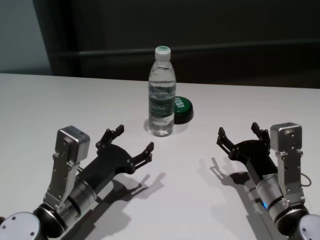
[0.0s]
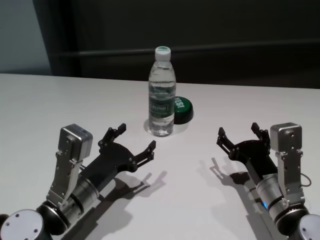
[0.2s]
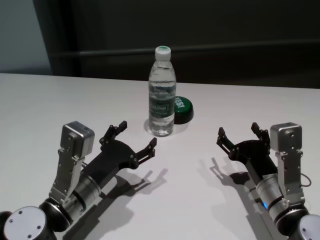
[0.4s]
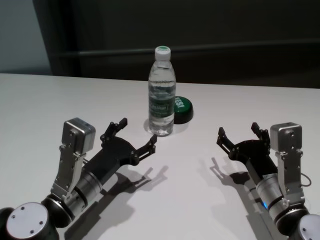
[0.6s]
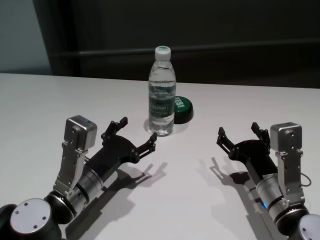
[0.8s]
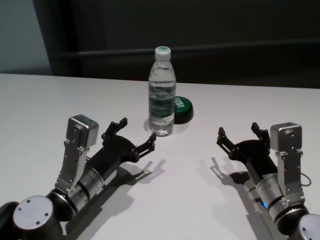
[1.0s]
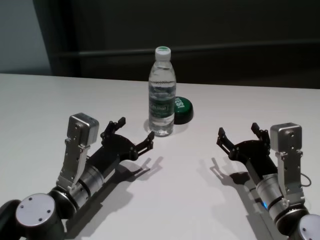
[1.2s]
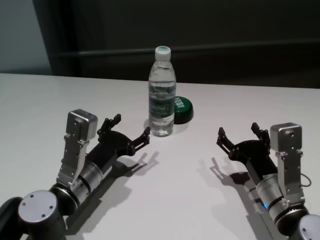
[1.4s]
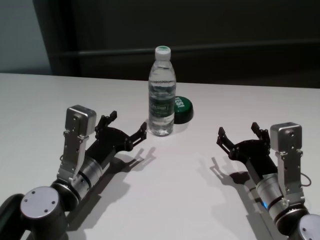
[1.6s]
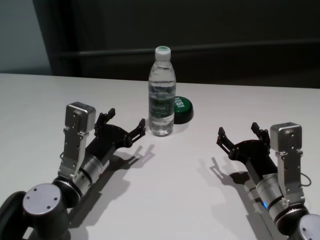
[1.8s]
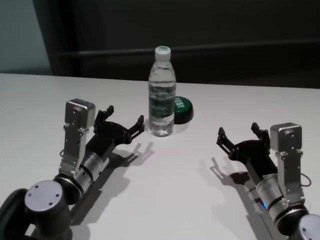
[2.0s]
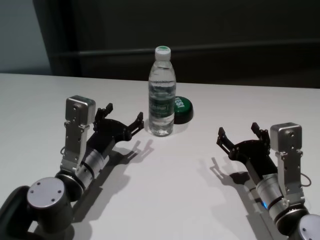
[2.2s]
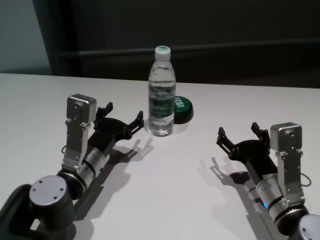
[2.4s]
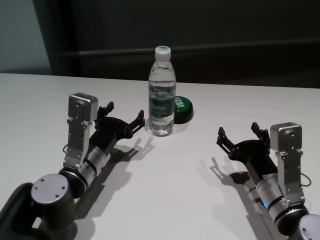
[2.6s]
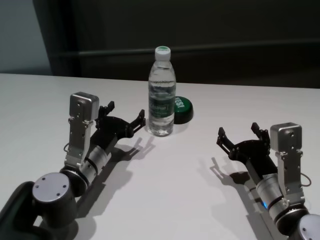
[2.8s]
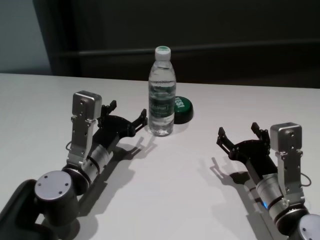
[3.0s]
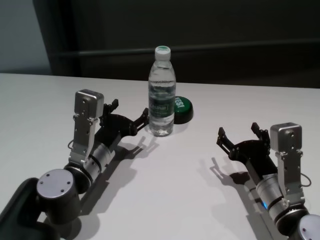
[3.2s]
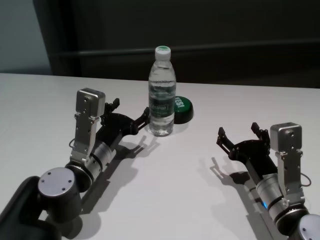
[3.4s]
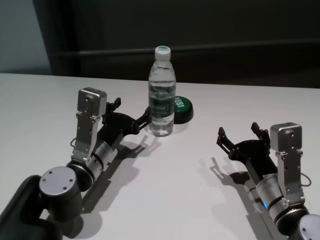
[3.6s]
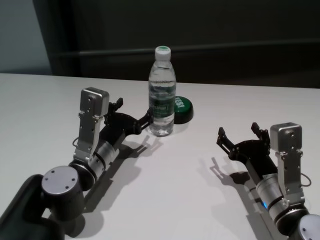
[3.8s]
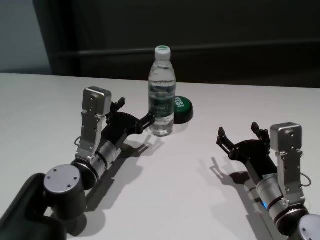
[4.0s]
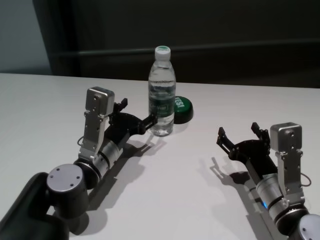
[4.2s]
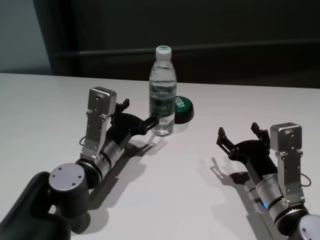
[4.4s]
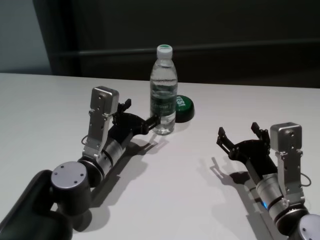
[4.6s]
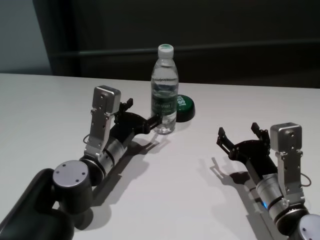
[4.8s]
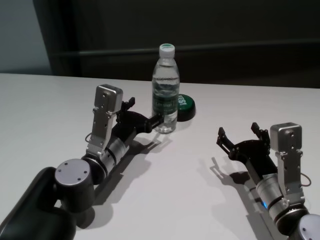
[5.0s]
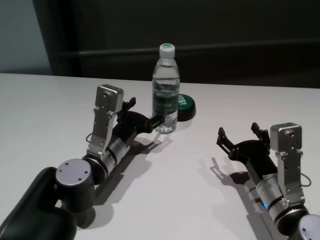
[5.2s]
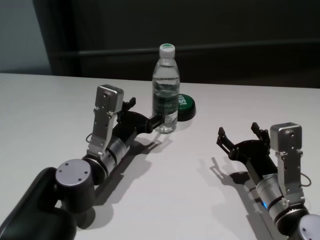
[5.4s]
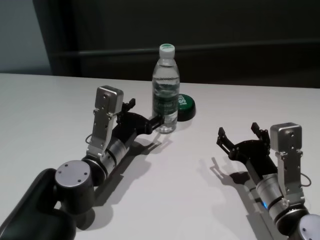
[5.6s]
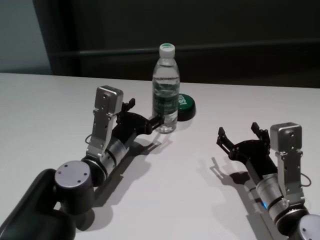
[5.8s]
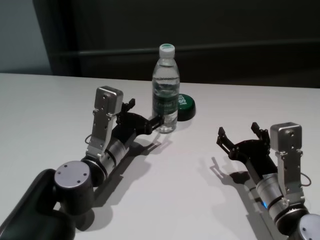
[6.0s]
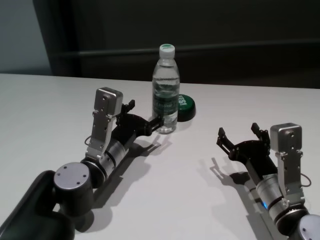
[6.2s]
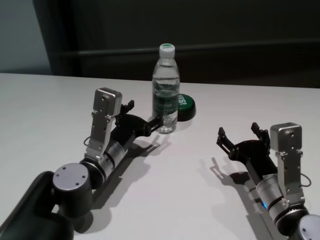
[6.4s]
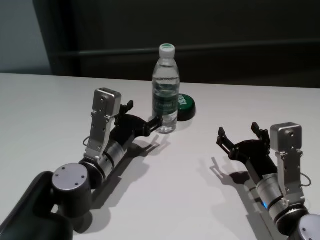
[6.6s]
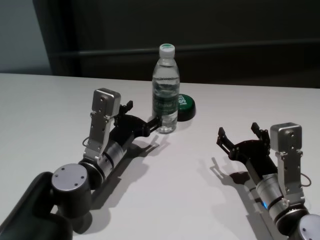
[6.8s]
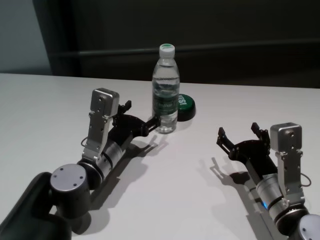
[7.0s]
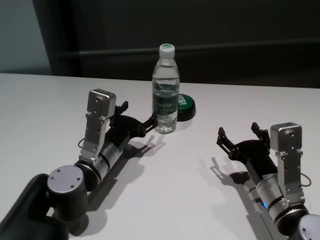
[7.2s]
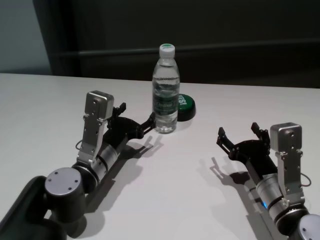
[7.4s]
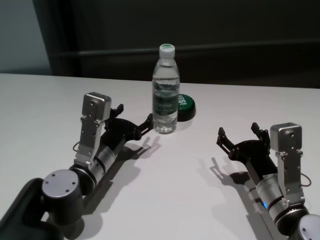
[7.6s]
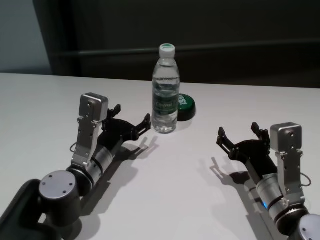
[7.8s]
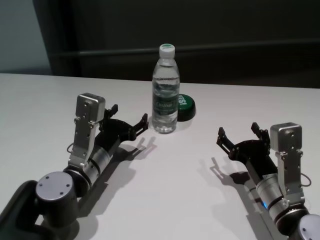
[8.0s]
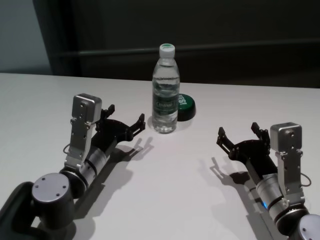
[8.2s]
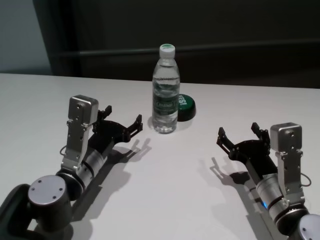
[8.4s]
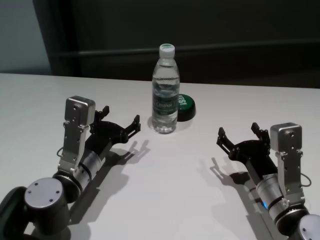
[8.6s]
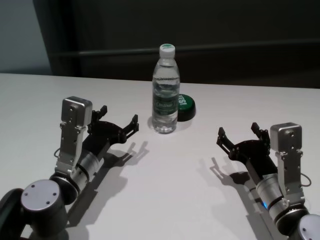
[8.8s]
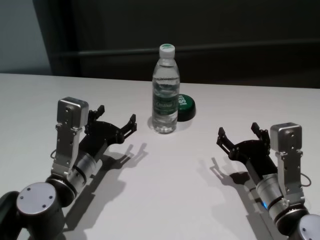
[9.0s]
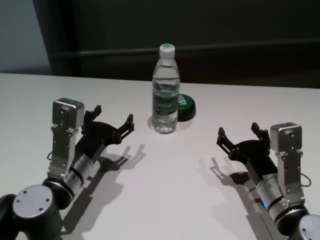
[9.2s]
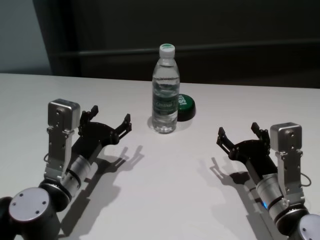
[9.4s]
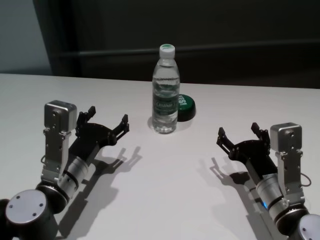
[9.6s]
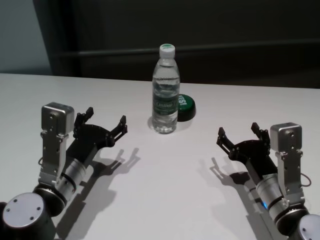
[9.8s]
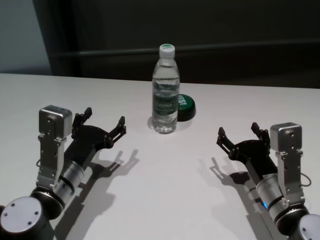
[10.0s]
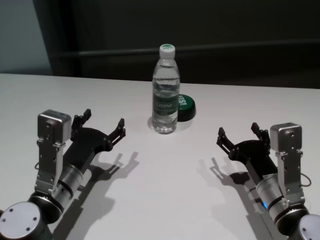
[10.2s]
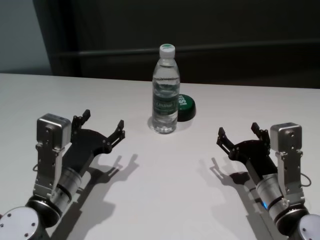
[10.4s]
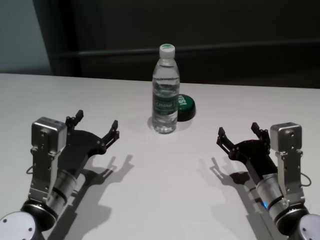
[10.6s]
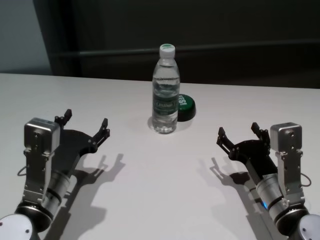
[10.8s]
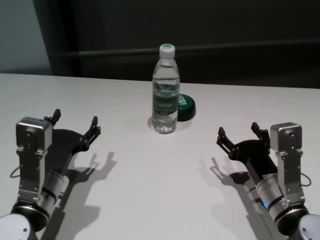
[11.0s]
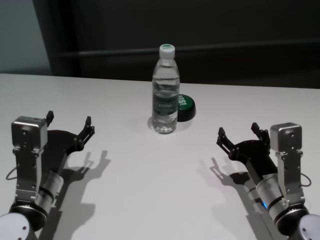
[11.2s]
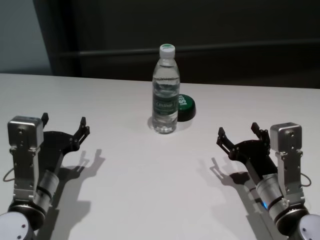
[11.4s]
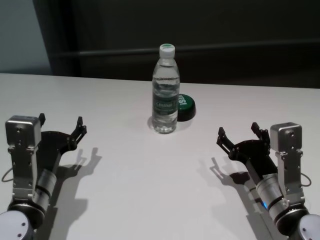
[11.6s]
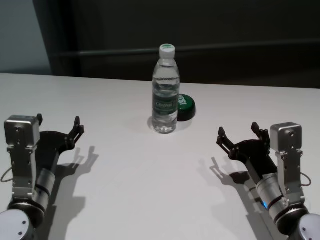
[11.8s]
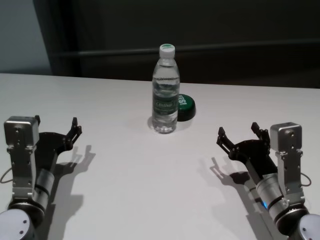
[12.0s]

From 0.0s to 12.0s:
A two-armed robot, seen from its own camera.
Task of the whole recording: return to a safe position after touching an obstacle with your arm on the white table.
Step, from 0.0s to 7.6s: Touch the bottle with left gripper.

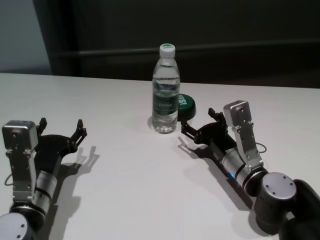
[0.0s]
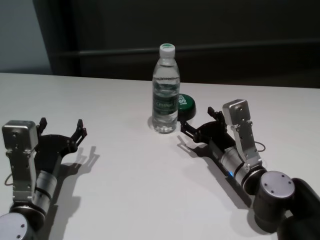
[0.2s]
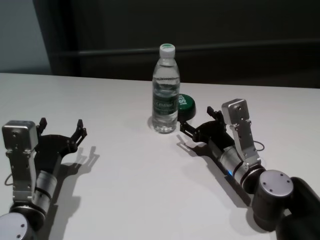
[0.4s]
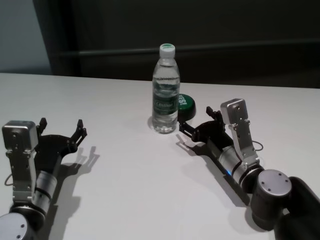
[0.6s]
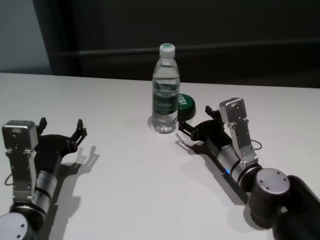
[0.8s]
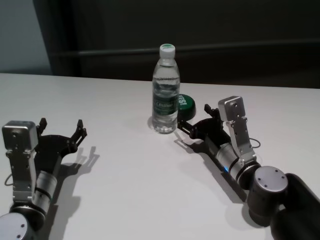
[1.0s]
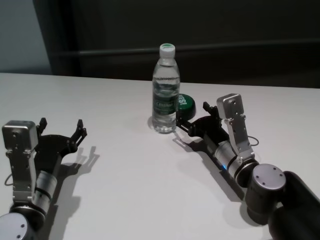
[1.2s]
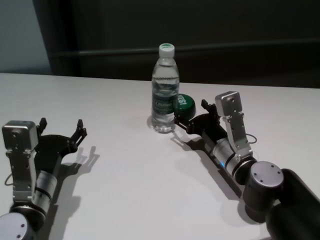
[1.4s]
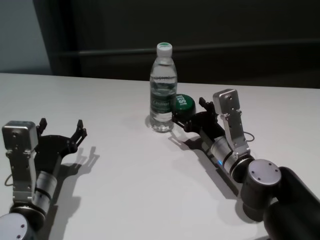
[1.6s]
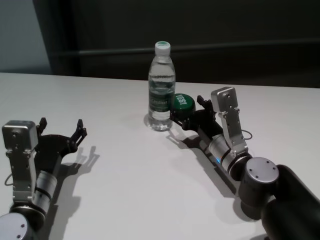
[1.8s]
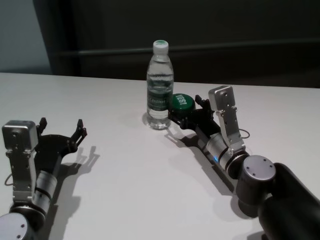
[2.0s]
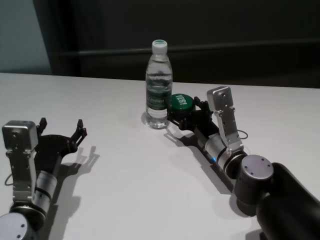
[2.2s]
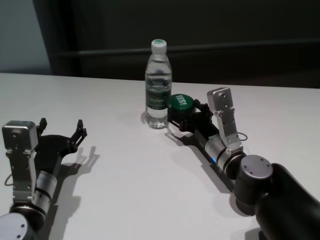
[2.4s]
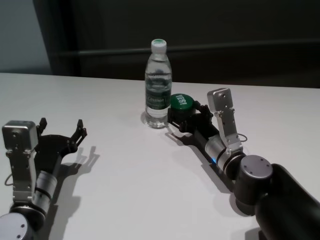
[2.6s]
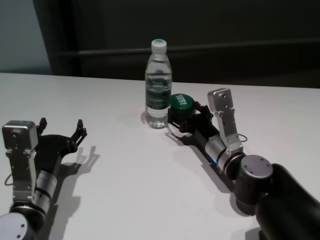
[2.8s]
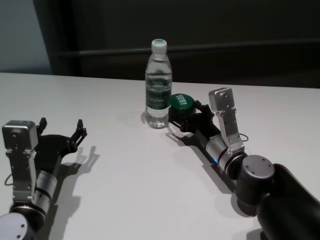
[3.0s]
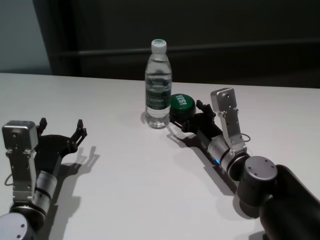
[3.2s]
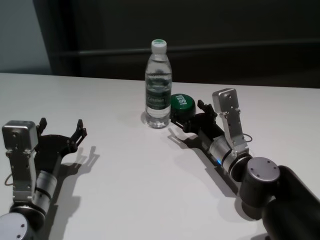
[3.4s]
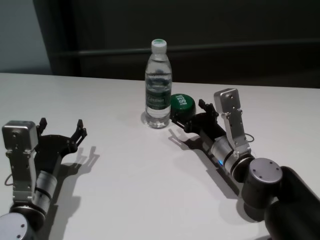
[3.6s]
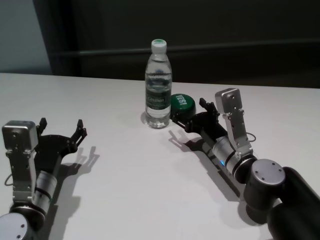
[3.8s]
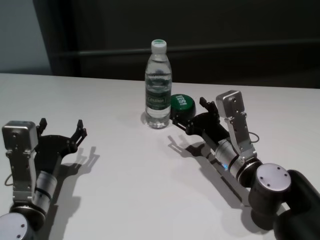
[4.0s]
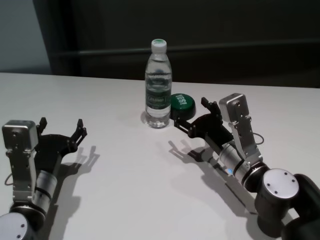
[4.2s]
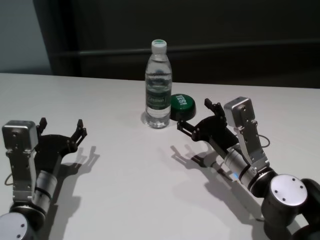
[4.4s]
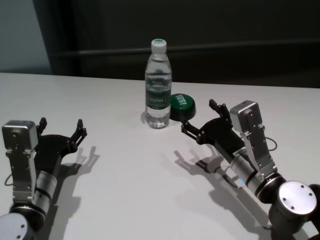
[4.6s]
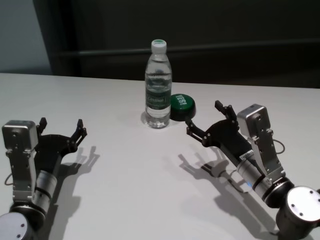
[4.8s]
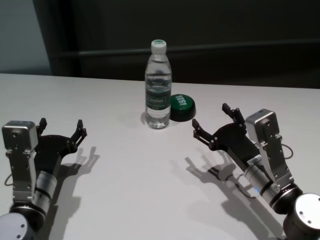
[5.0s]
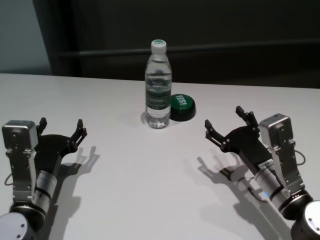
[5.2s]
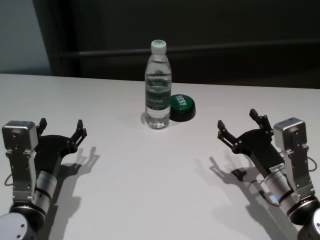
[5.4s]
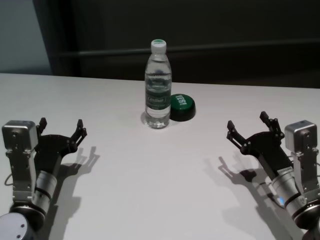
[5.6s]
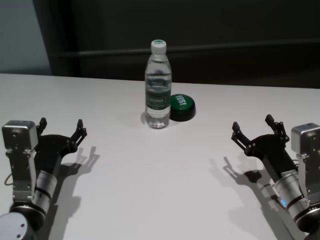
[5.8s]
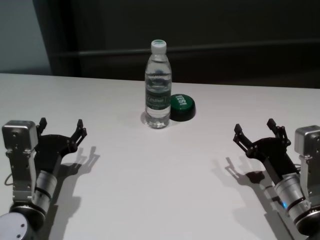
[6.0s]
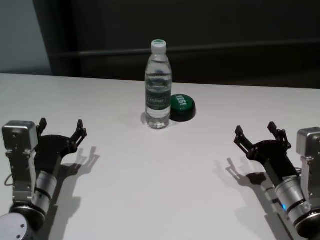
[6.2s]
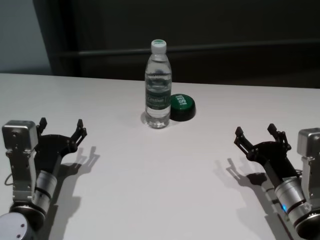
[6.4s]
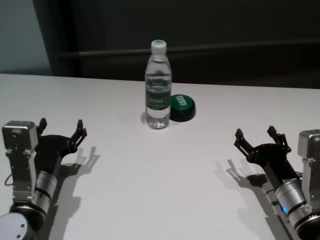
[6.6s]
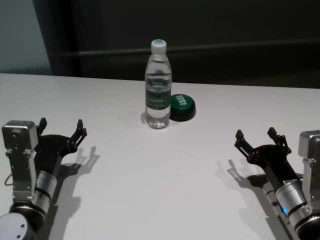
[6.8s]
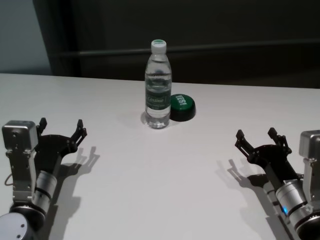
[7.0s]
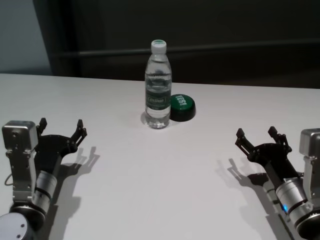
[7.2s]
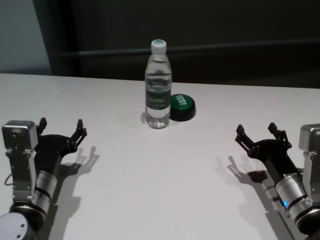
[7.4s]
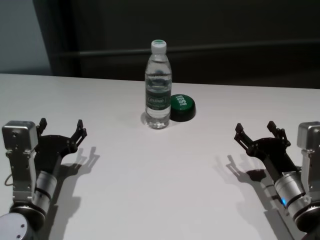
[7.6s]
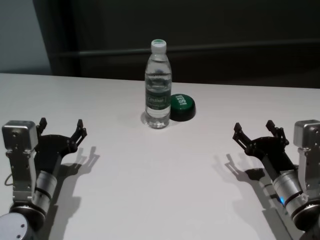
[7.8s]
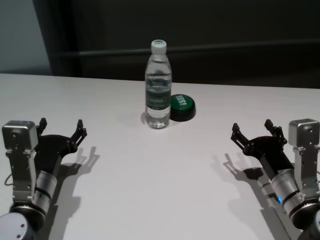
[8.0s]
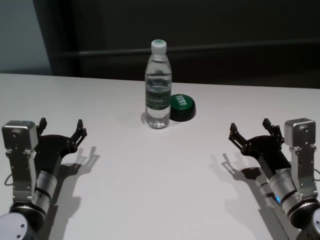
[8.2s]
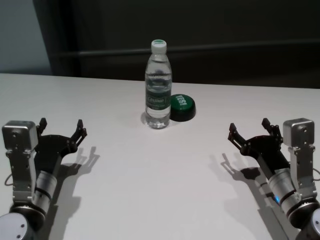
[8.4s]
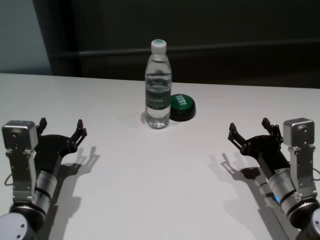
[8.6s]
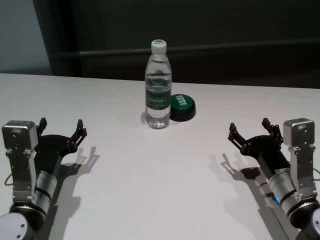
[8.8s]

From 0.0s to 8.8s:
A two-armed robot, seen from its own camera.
Task of the whole recording: return to a safe position after touching an obstacle with your arm on the white table.
Step, from 0.0s to 3.2s: Touch the bottle with right gripper.

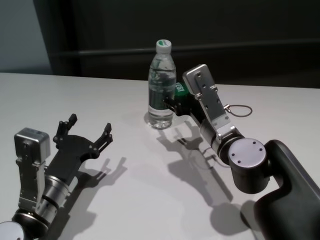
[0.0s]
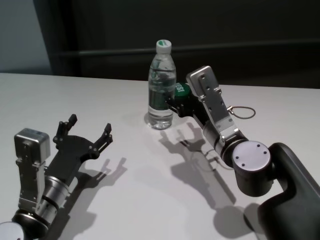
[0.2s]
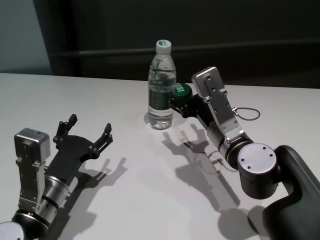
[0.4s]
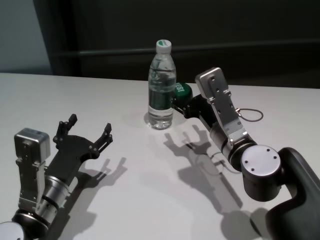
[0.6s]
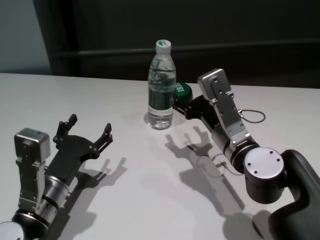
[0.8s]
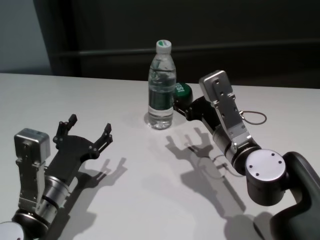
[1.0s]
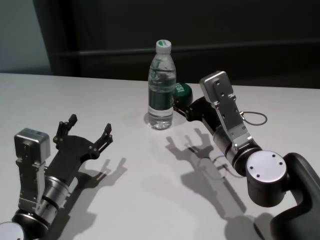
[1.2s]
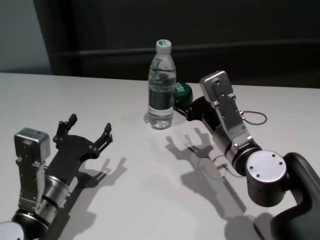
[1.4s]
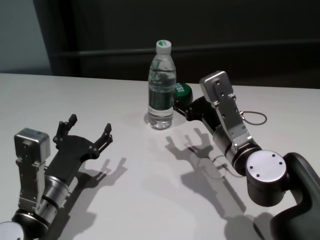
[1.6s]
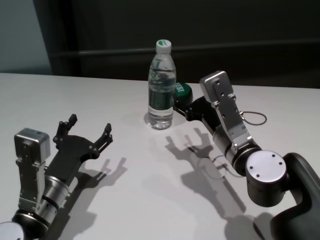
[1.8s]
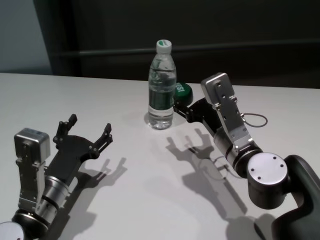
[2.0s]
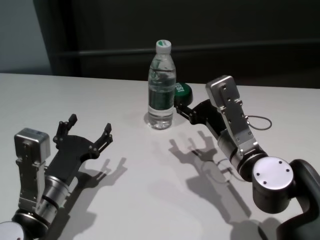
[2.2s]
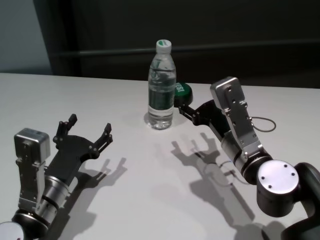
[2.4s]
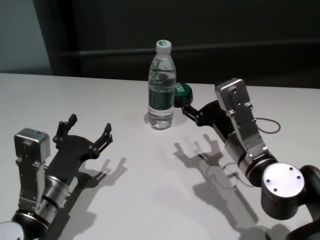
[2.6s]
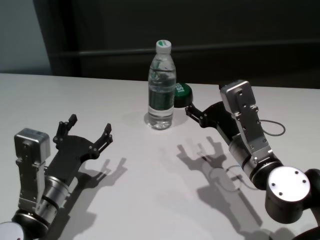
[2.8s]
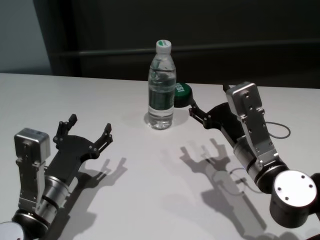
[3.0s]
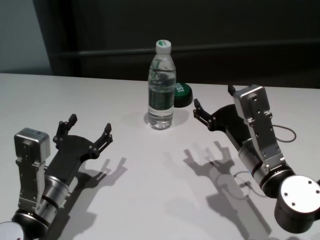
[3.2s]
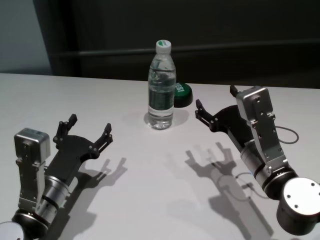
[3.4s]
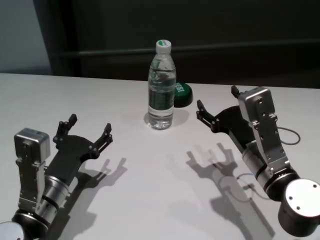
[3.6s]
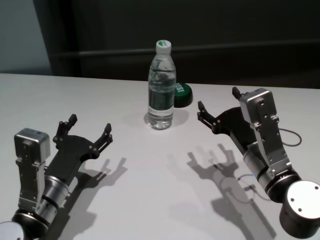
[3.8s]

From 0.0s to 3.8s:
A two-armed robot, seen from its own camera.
Task of the whole recording: return to a safe position after touching an obstacle with your arm on the white table.
Step, from 0.0s to 3.0s: Touch the bottle with right gripper.
